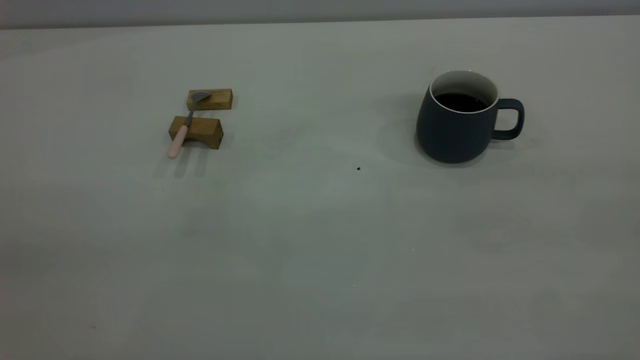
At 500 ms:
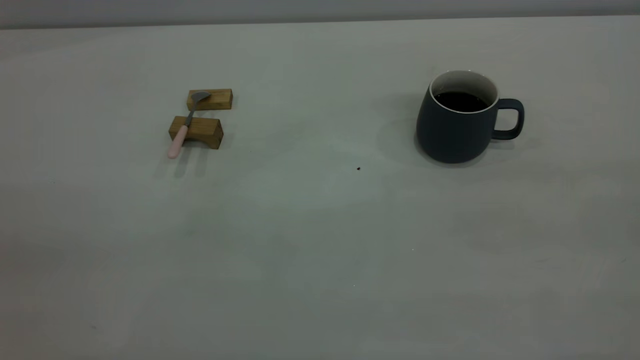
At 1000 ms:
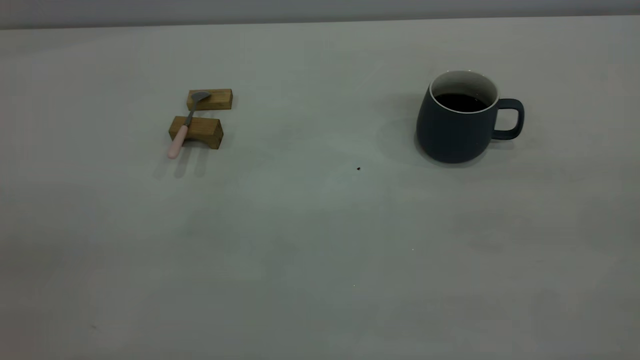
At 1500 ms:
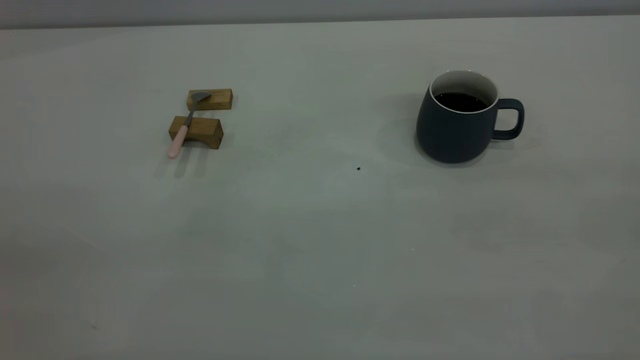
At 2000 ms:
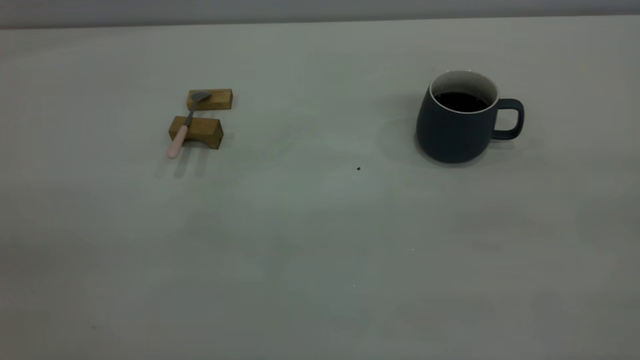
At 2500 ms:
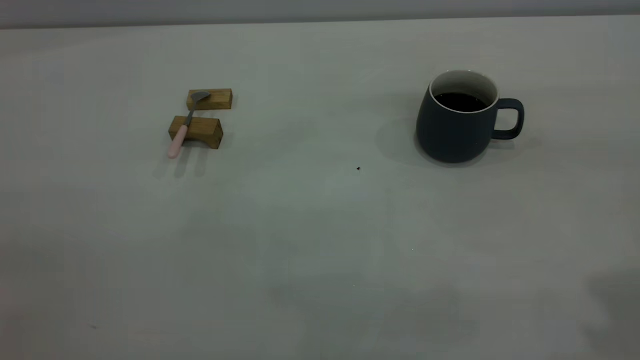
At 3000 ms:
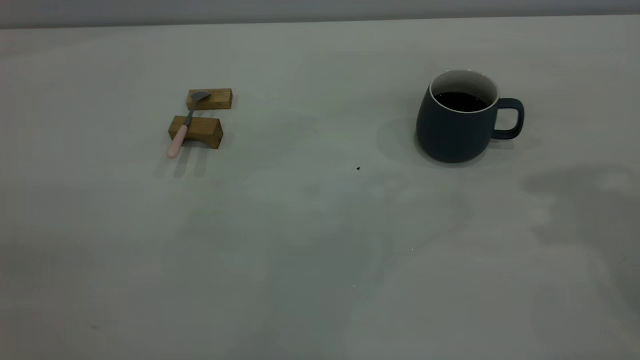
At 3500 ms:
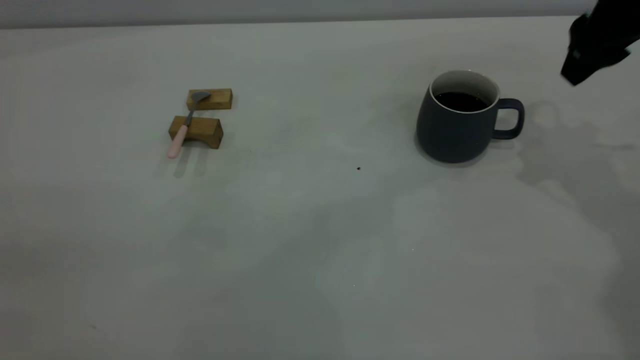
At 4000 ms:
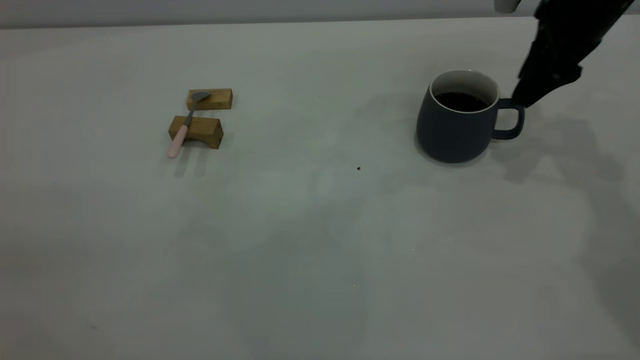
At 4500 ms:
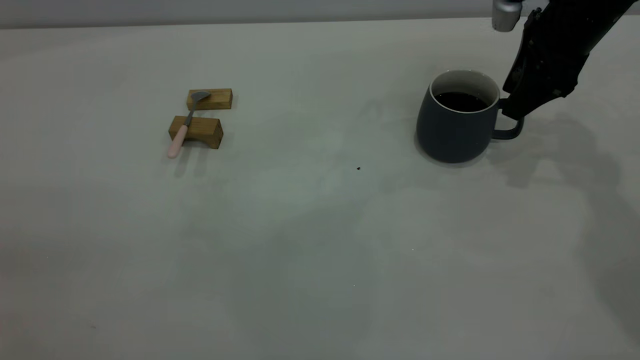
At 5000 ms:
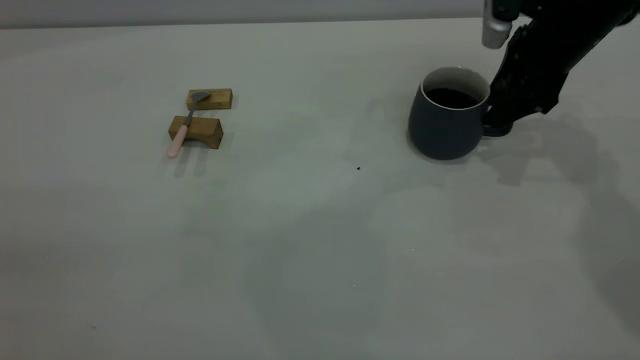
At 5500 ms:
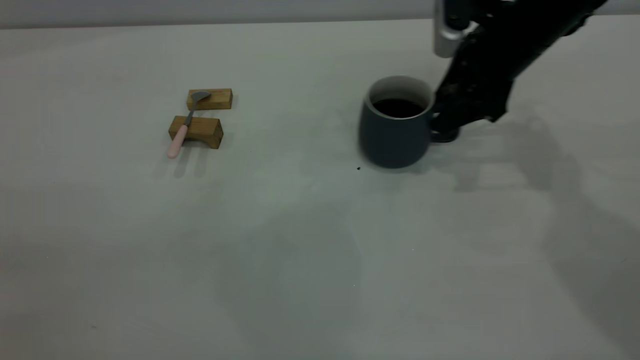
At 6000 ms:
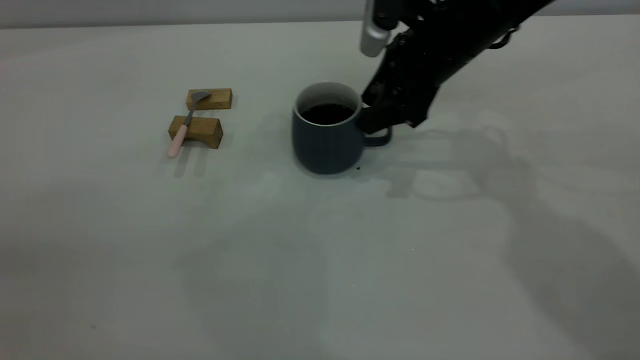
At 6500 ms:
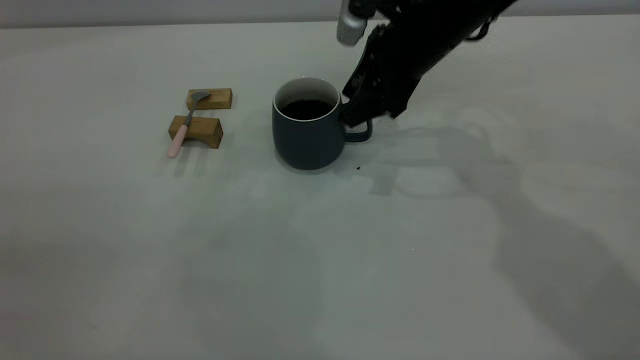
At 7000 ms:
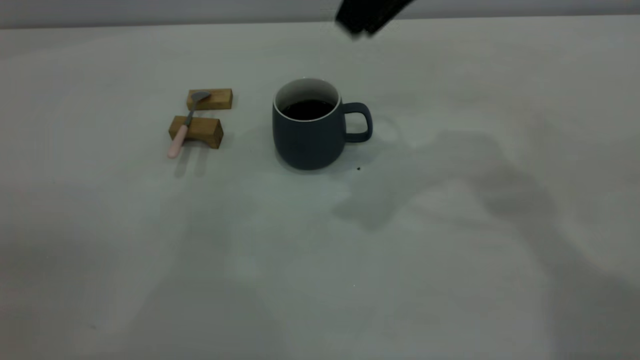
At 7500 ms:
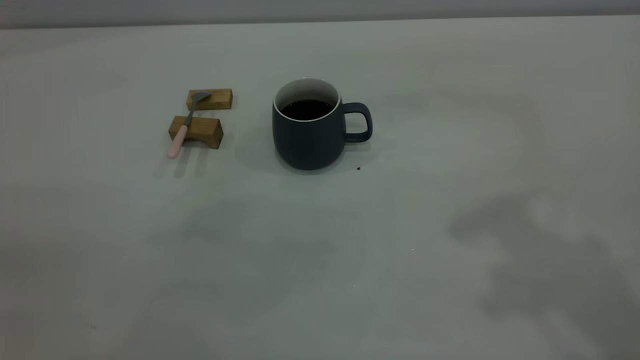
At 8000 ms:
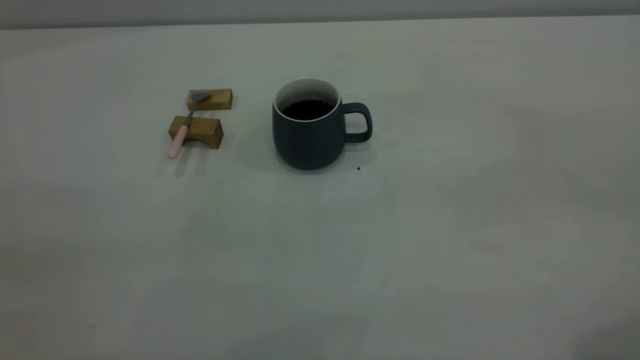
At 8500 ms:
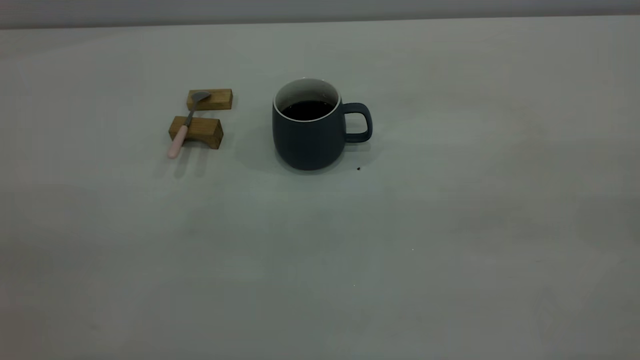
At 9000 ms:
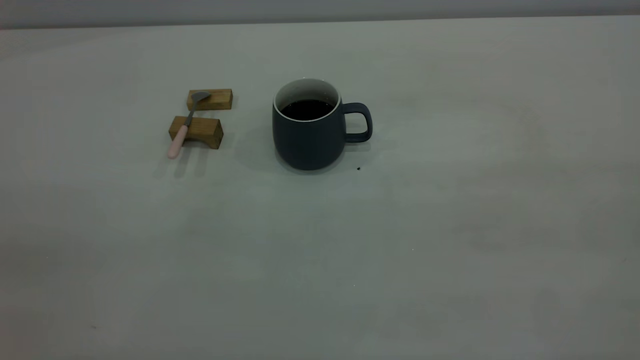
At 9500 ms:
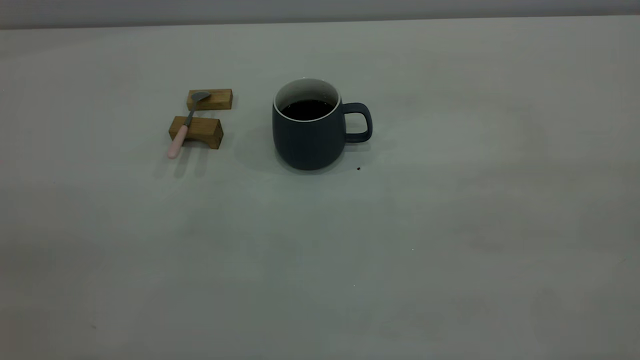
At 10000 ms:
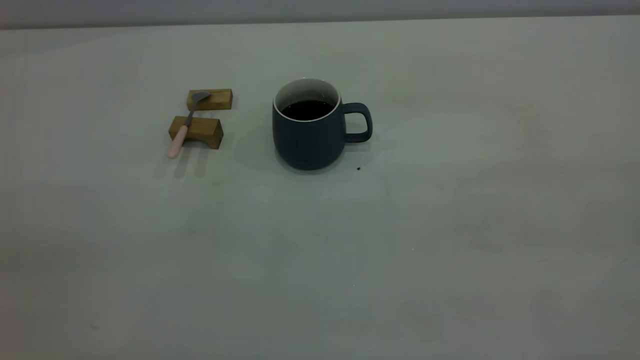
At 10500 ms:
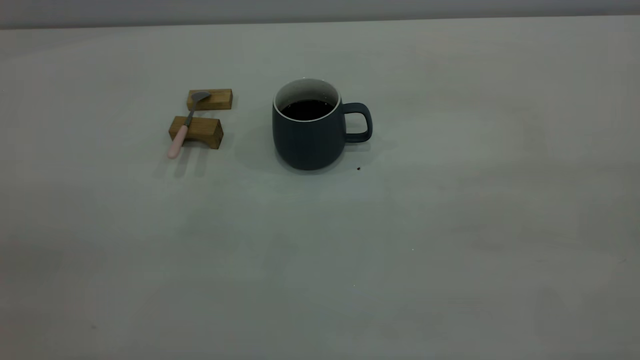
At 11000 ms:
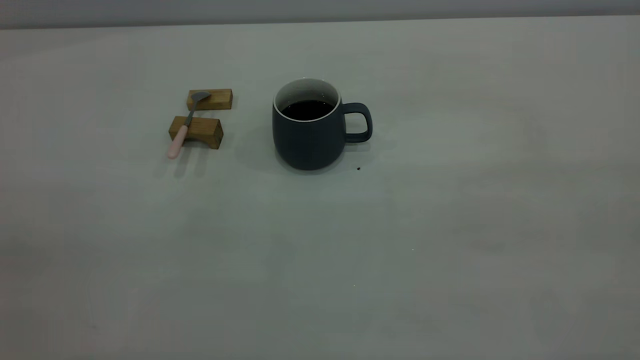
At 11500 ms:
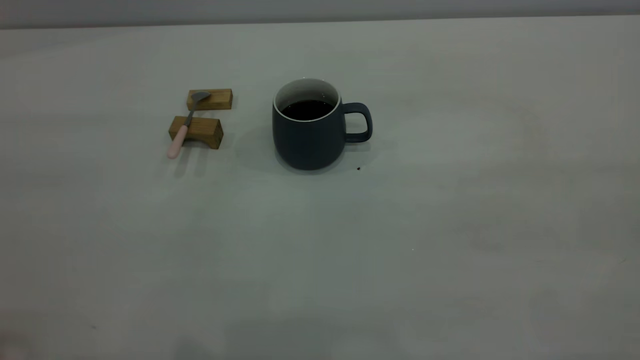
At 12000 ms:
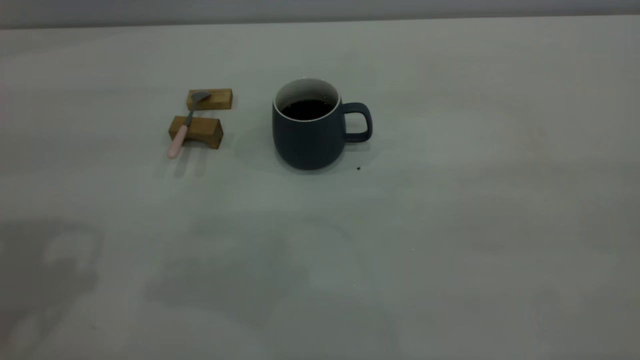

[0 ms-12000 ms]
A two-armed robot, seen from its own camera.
Step, 0 ms to 6500 ms: Move the cup with coffee to the center of view.
2000 ms to 4000 ms: The right gripper heads forward and downward, covering approximately 50 cm.
4000 ms to 6000 ms: The right gripper moves to the left, roughly 15 cm.
6000 ms to 8000 ms: The right gripper shifts about 40 cm backward, upward and to the right.

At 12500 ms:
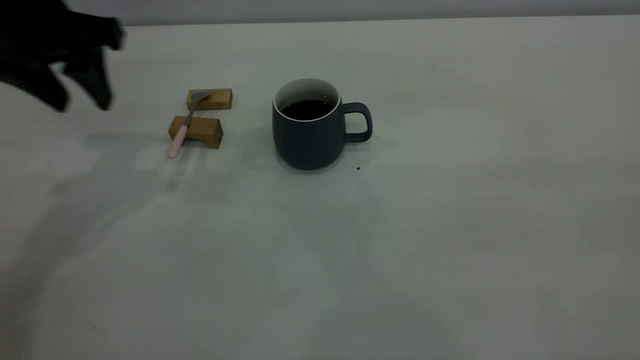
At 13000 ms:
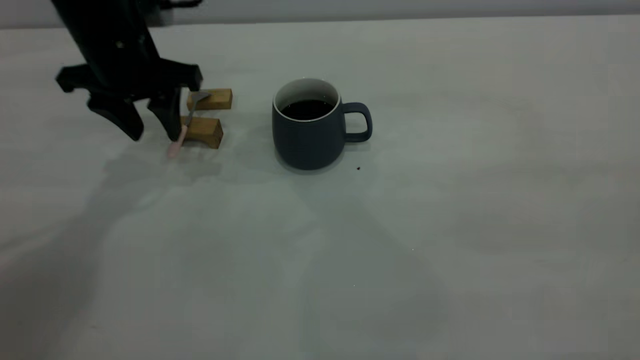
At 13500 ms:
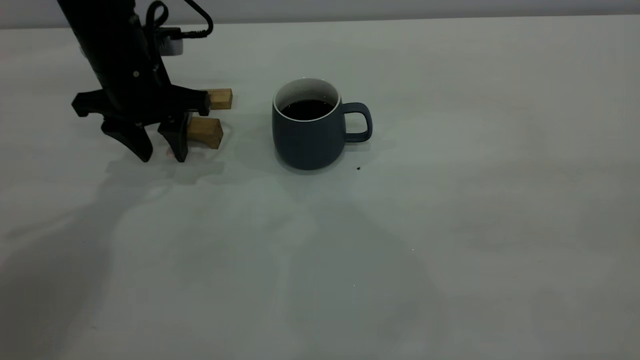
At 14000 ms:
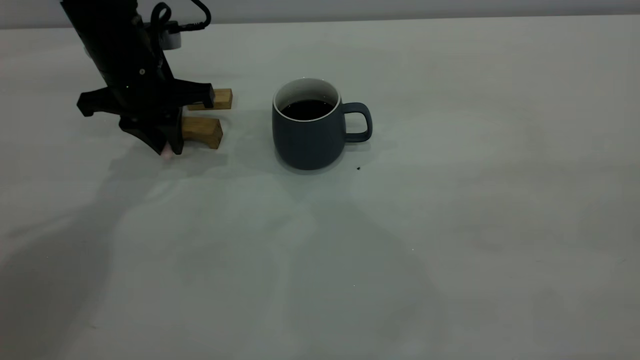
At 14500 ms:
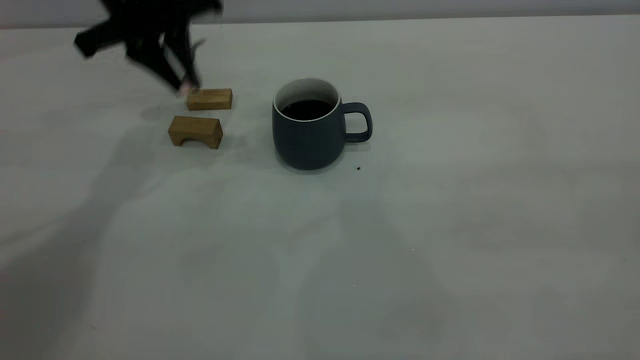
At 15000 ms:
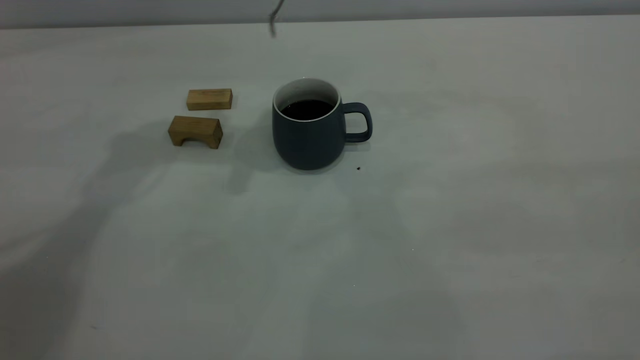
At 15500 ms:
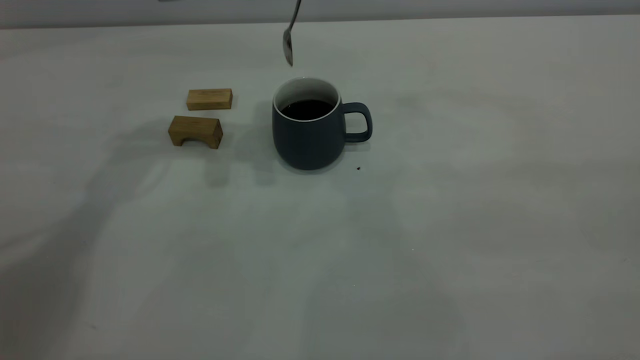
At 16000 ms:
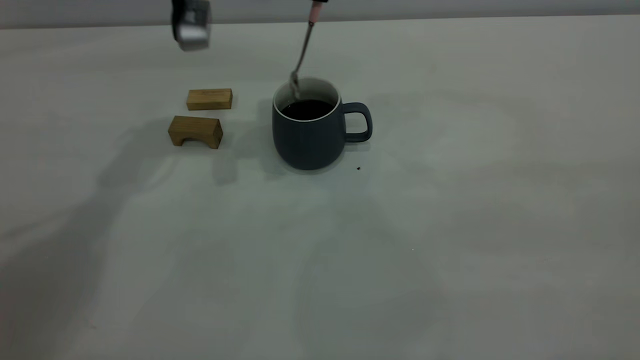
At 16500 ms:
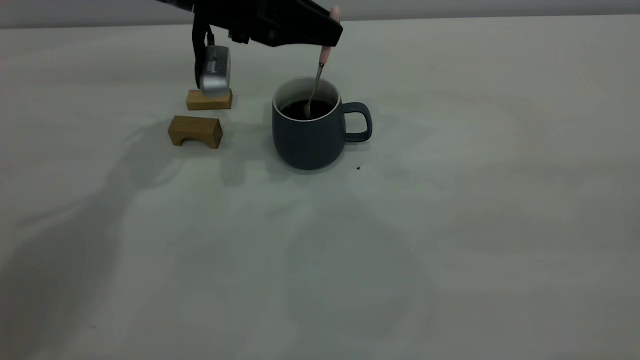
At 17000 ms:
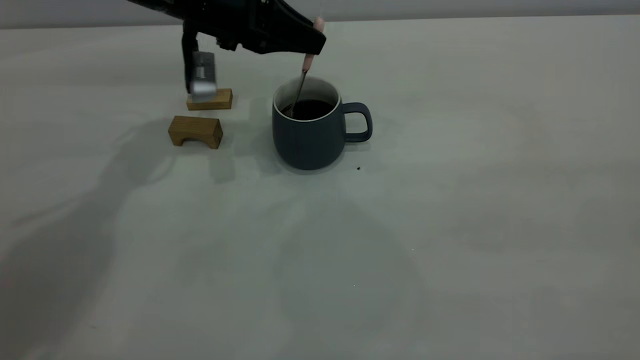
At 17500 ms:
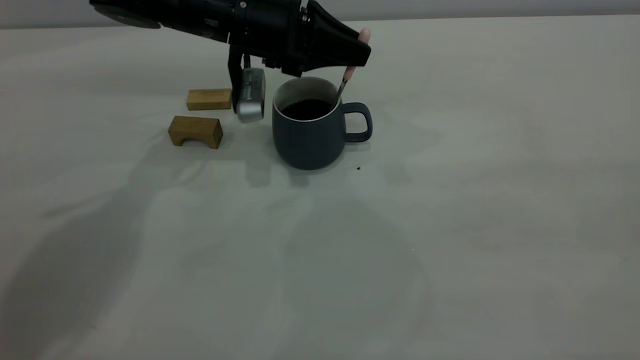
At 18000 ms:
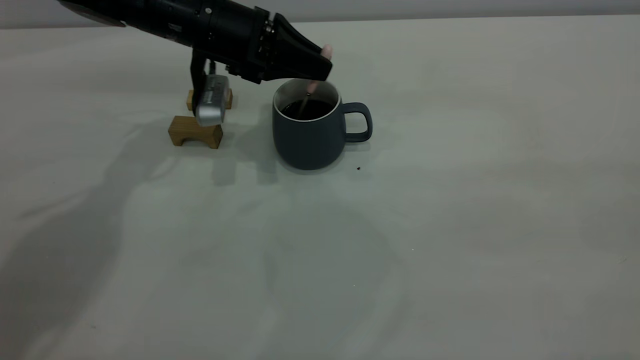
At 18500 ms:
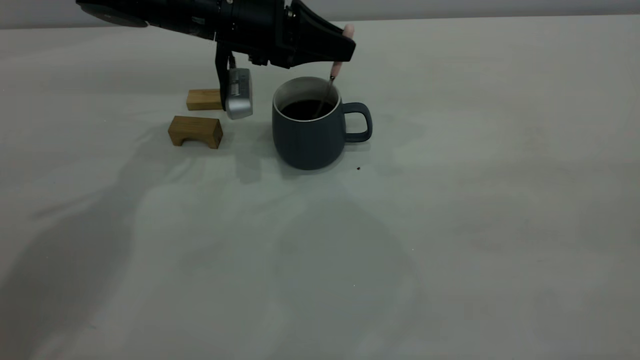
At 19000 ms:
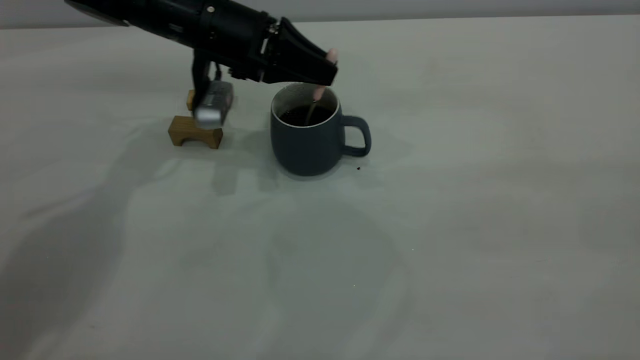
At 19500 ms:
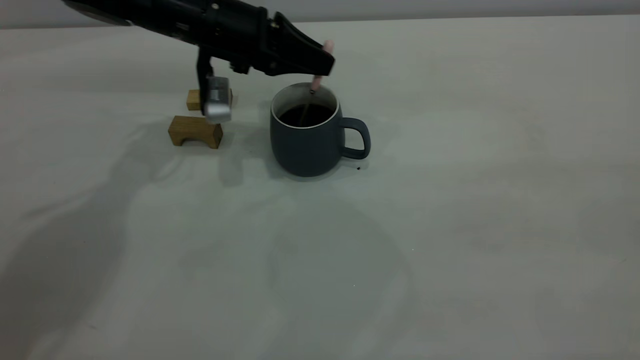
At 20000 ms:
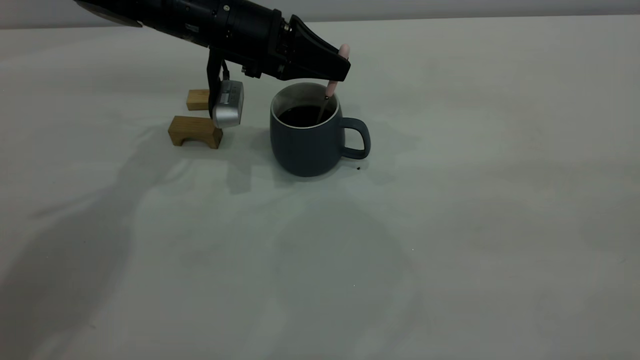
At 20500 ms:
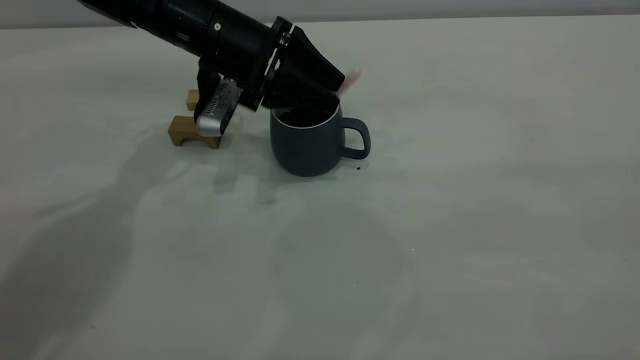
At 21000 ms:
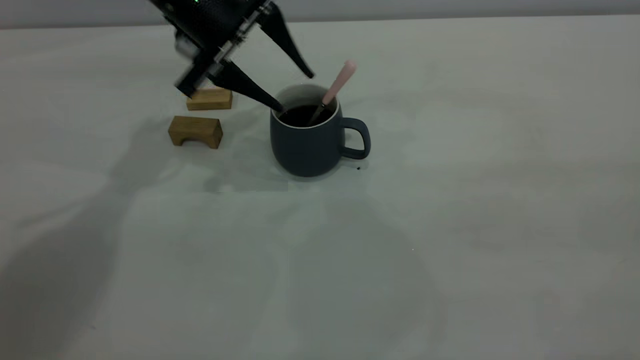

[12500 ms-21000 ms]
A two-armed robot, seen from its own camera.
12500 ms to 14500 ms: The left gripper moves to the right and forward, some 10 cm, reaches approximately 10 cm downward, then returns, and closes.
14500 ms to 16500 ms: The left gripper shifts approximately 5 cm to the right and downward.
16500 ms to 19000 ms: The grippers stay close to where they were, moving slightly.
19000 ms to 21000 ms: The left gripper moves upward, about 5 cm, and opens its fingers.
